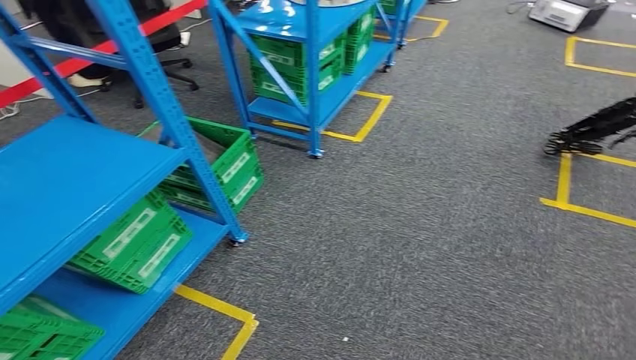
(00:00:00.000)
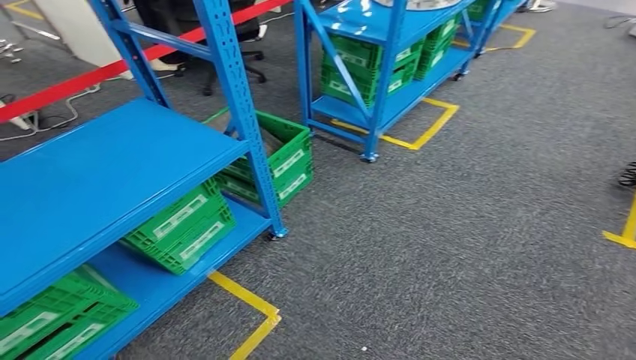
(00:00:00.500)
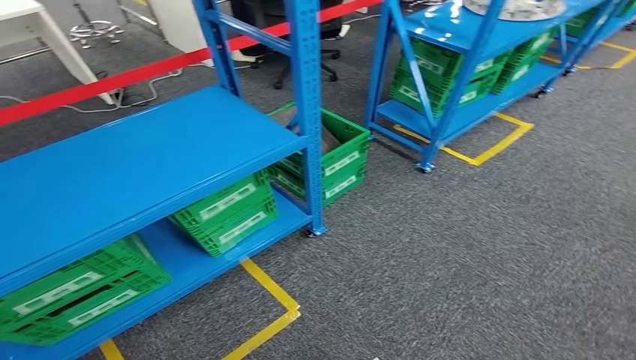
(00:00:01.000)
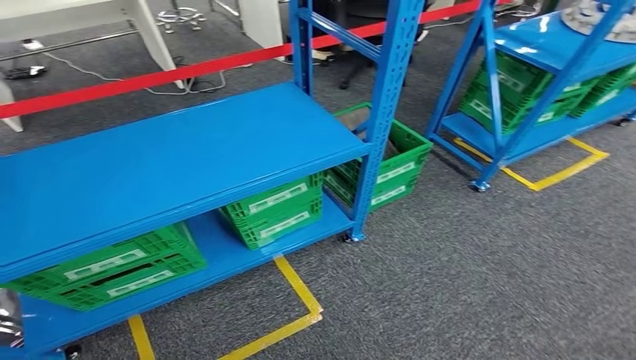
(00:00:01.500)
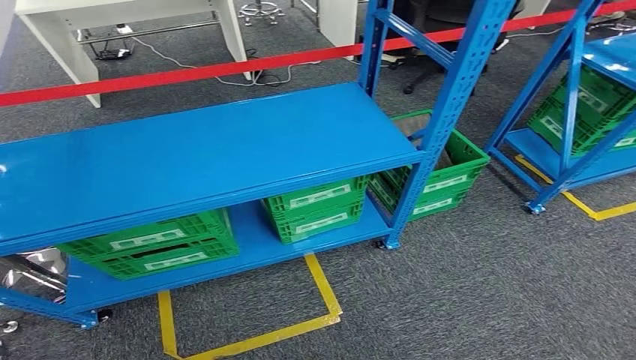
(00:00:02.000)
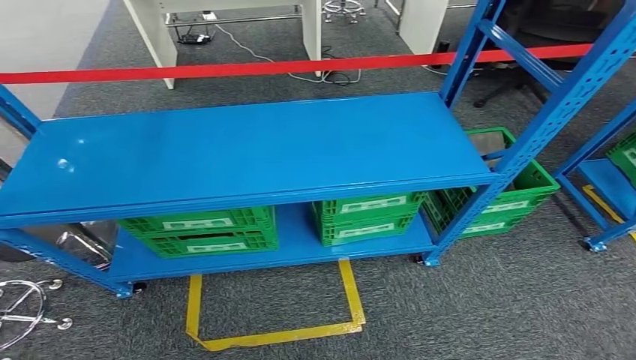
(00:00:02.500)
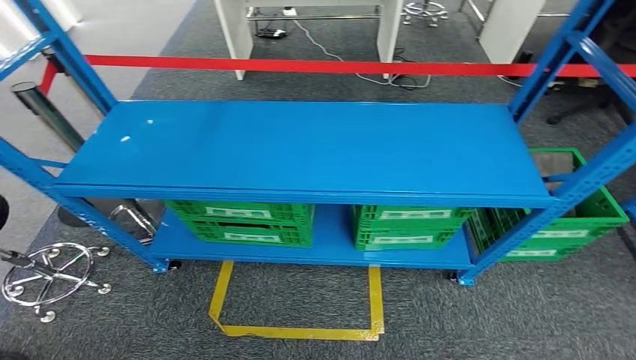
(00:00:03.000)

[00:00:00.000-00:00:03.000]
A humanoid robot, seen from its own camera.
Step, 00:00:00.000 to 00:00:03.000: Return to the initial position at the workbench.
